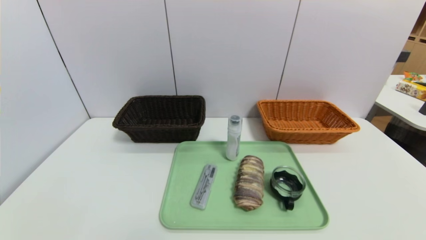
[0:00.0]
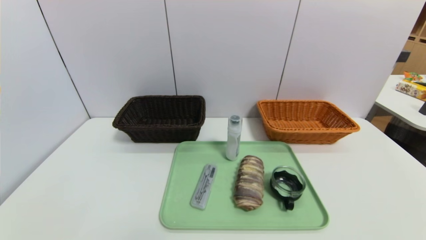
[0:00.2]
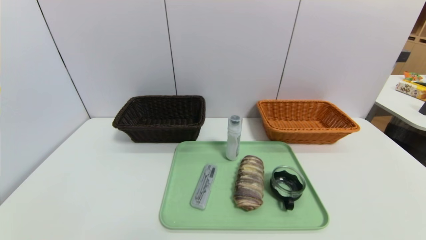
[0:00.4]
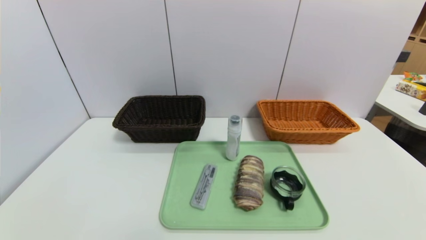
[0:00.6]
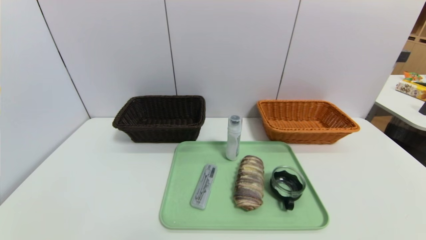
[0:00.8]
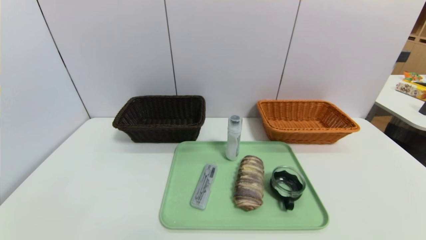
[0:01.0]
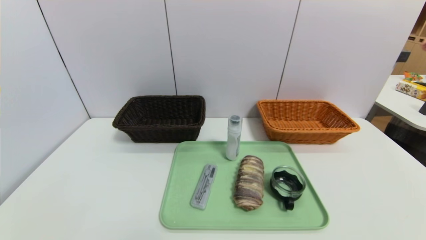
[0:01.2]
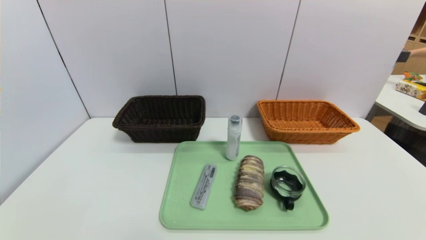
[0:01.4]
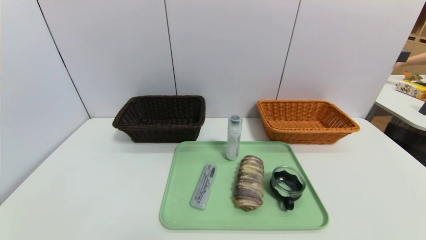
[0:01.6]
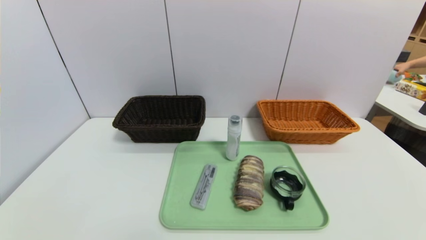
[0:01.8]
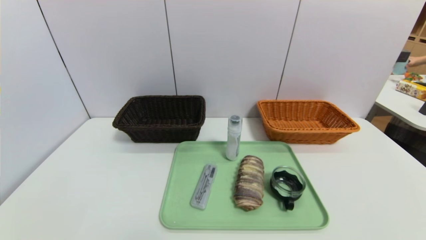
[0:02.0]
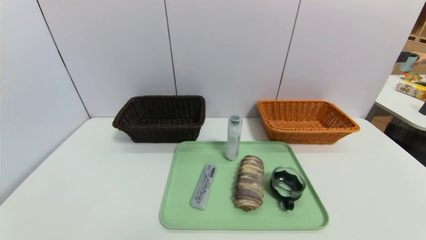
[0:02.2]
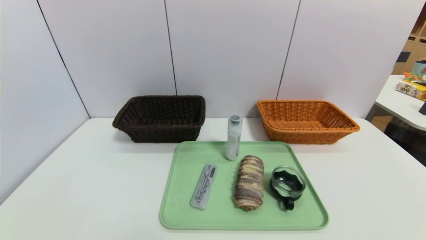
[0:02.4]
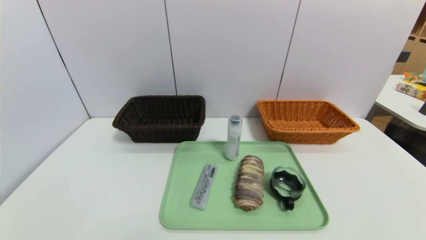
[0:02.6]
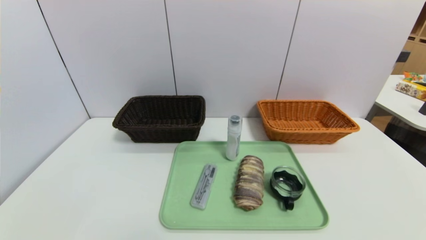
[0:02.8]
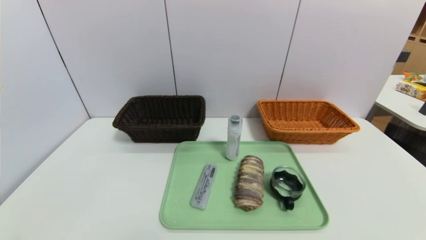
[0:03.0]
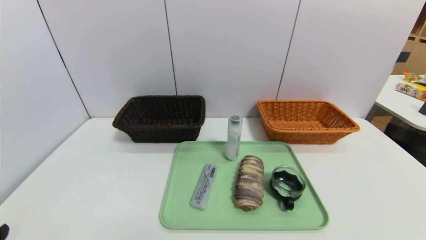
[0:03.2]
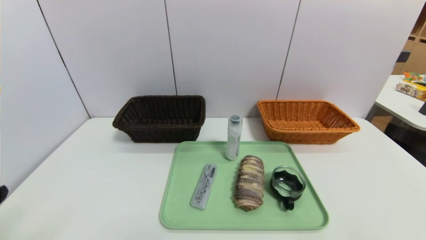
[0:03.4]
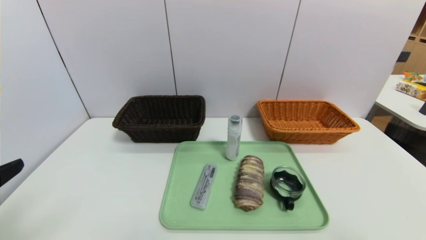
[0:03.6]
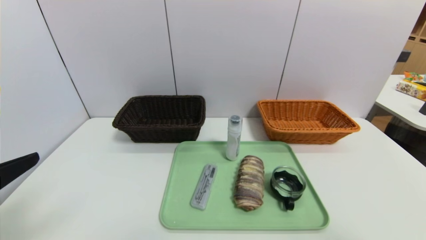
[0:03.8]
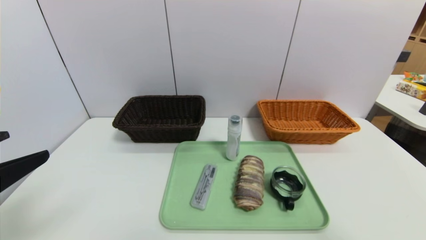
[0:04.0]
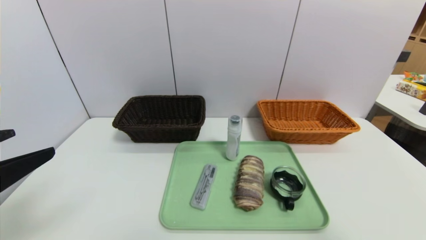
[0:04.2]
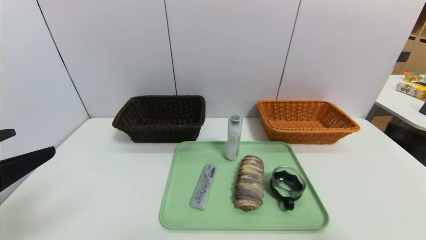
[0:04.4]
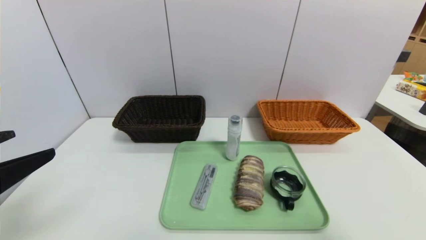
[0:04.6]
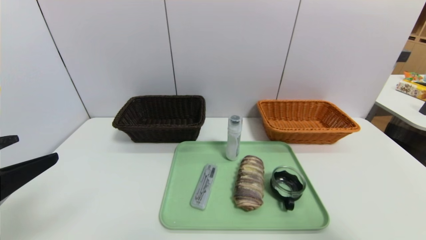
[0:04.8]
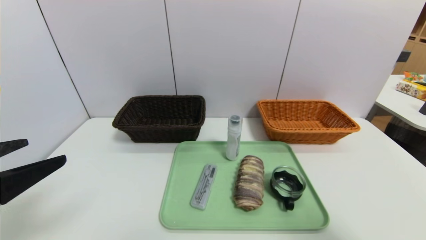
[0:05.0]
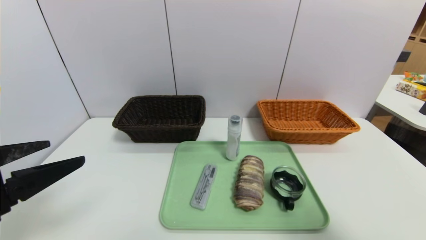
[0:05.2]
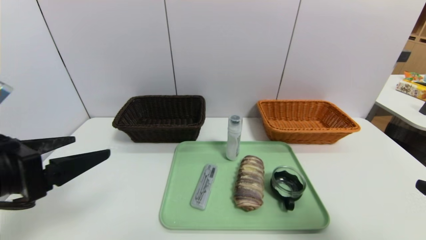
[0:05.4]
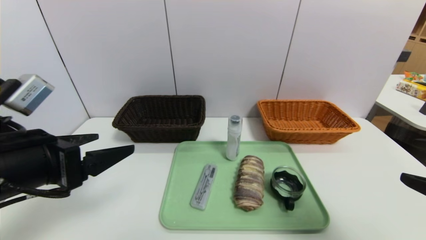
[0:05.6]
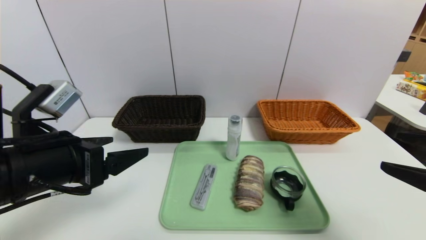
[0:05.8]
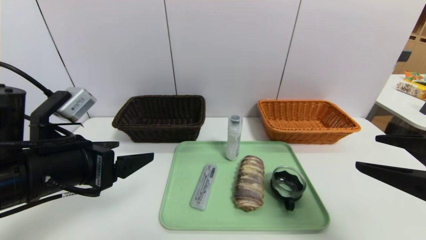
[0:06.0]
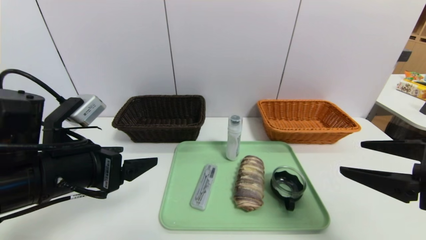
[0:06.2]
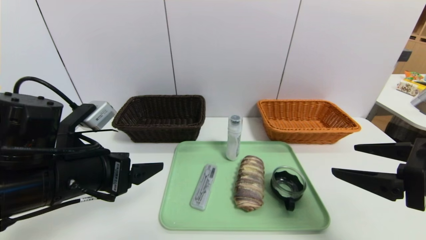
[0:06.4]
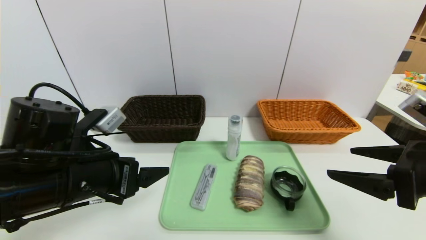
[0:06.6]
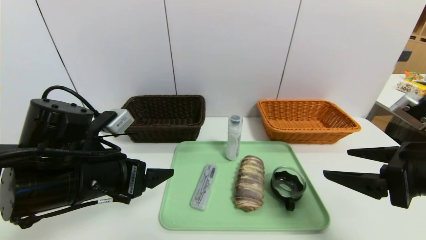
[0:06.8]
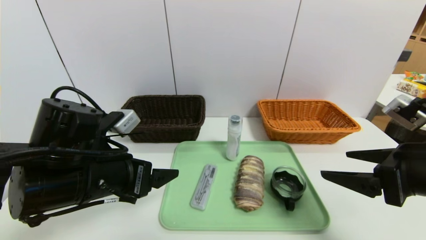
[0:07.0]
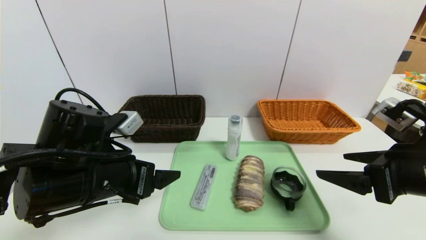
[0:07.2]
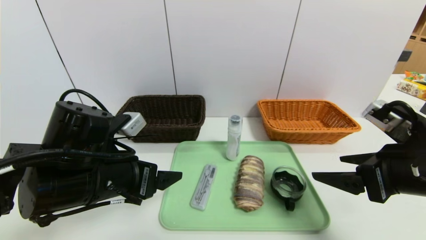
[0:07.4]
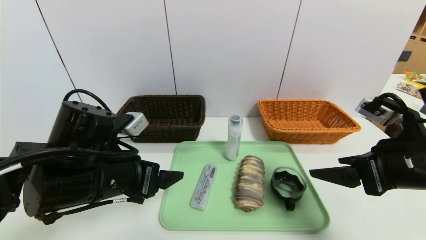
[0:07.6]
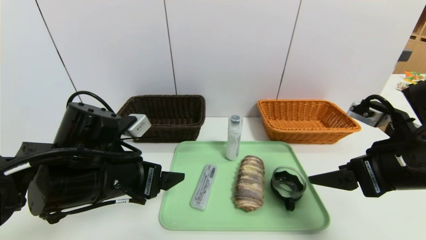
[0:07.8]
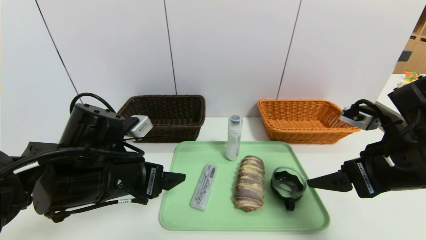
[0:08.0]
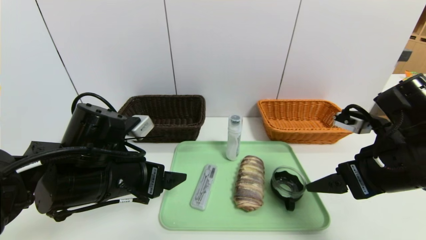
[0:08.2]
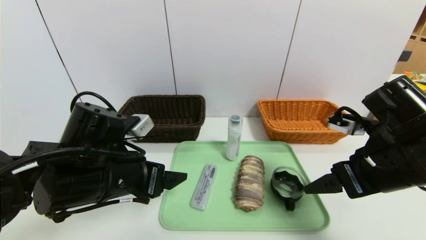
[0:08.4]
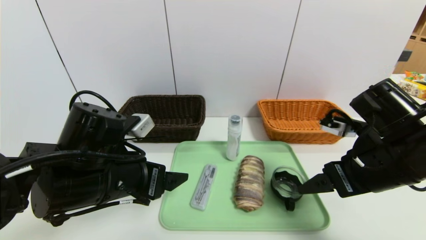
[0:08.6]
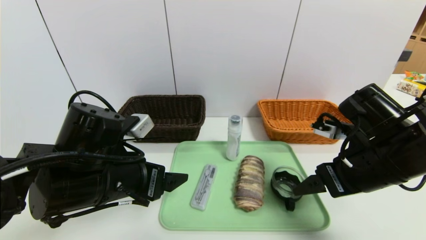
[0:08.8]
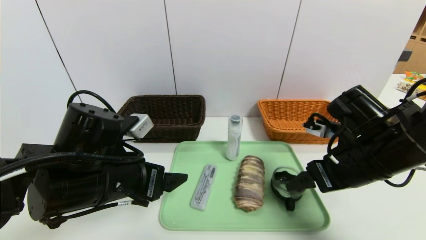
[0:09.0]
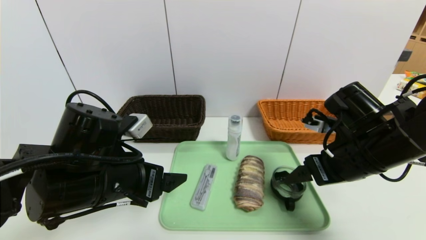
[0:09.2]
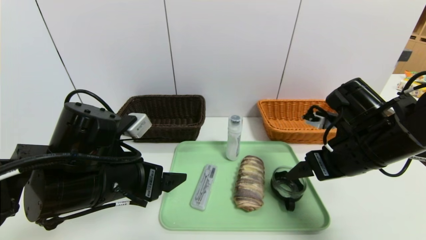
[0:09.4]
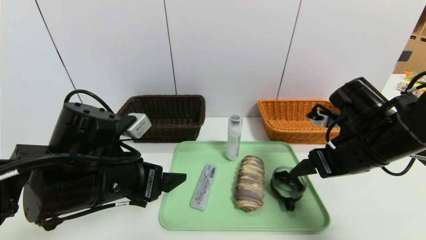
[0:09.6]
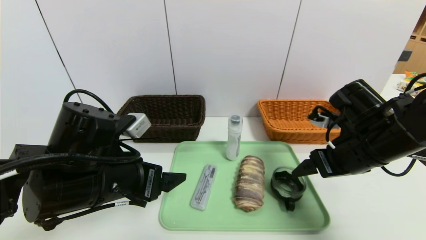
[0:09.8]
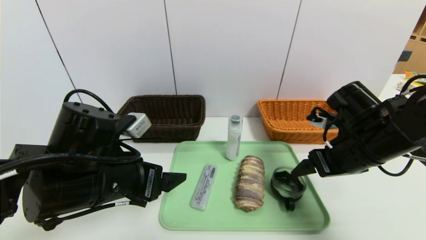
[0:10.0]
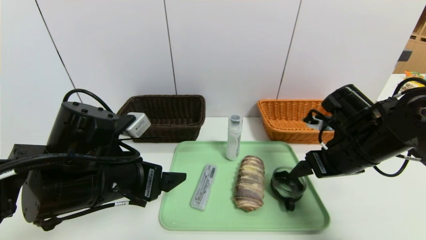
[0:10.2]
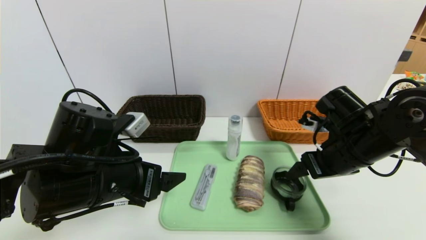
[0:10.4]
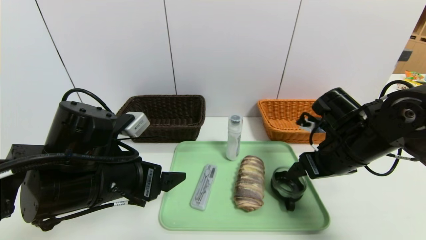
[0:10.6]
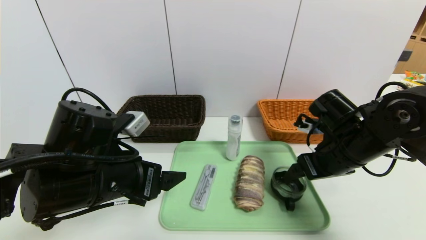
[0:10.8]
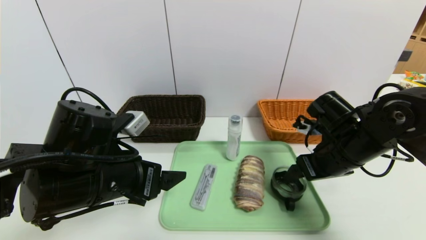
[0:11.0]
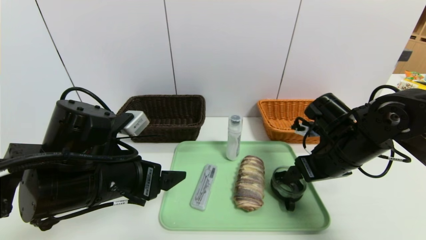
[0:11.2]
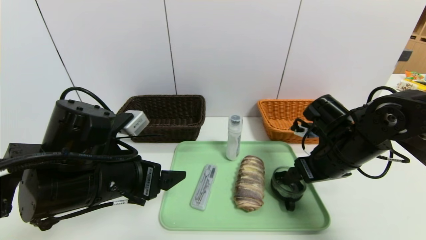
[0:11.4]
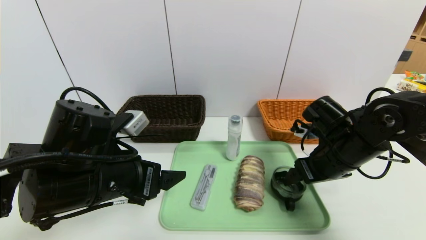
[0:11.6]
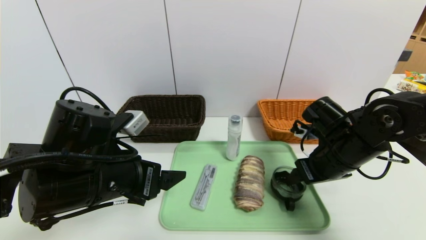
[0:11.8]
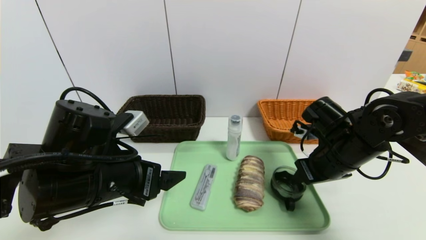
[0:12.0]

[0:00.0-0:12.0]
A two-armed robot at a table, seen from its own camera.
Task of the whole recording: place the food in the right basket with the right gripper, and place the non food items in the left basket with the left gripper.
0:00.0 to 0:01.6: Neither gripper changes place.
0:03.0 to 0:04.4: The left gripper heads upward and forward, covering approximately 15 cm.
0:04.4 to 0:06.0: The left gripper heads forward and to the right, covering approximately 10 cm; the right gripper moves forward, about 10 cm.
0:06.0 to 0:07.6: The left gripper moves approximately 5 cm; the right gripper travels forward by roughly 5 cm.
0:07.6 to 0:09.0: The right gripper is displaced forward by about 5 cm.
0:09.0 to 0:10.4: The grippers make only small movements.
0:10.4 to 0:12.0: The right gripper closes.

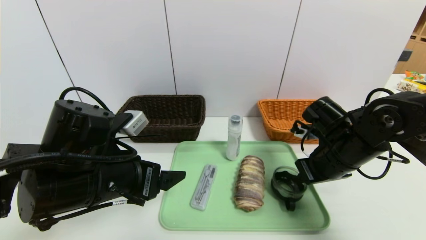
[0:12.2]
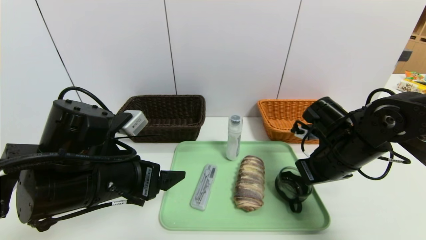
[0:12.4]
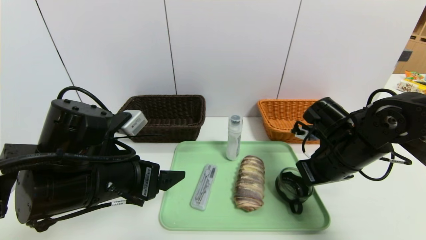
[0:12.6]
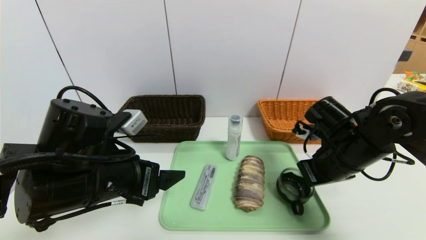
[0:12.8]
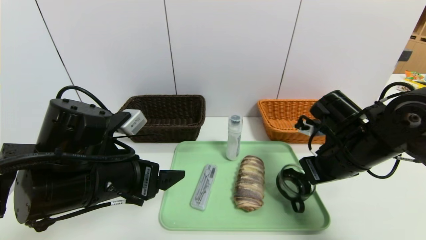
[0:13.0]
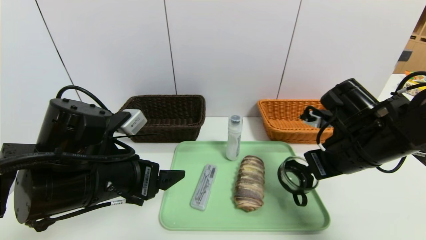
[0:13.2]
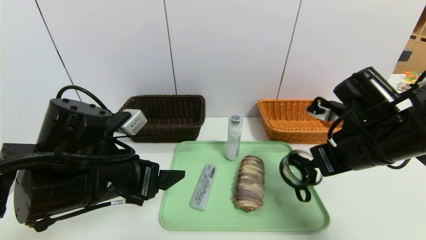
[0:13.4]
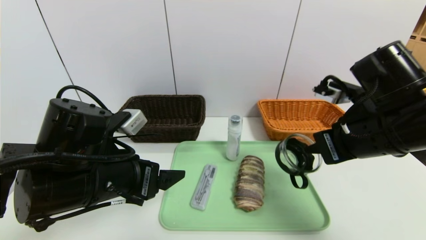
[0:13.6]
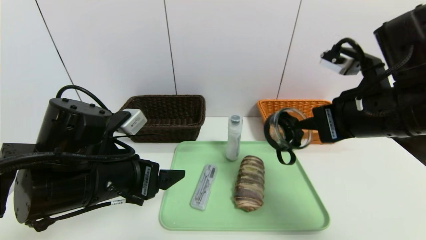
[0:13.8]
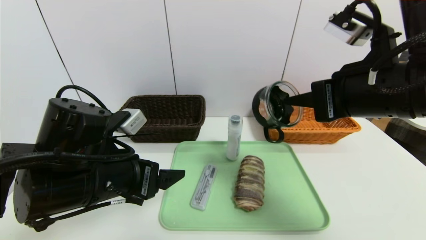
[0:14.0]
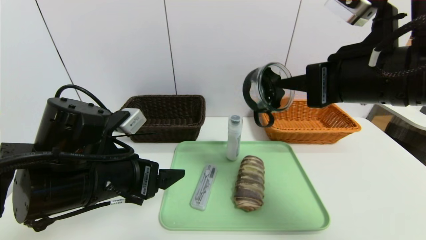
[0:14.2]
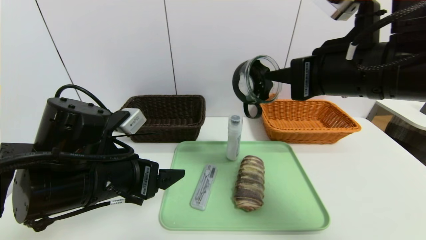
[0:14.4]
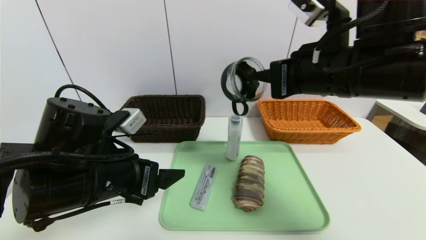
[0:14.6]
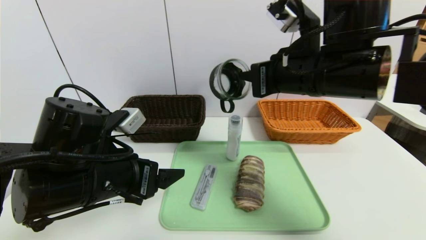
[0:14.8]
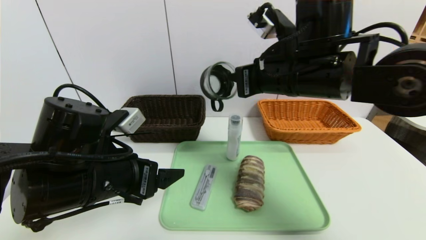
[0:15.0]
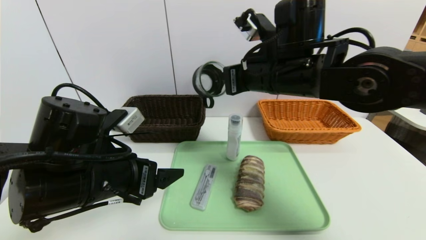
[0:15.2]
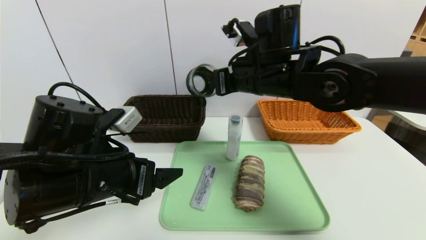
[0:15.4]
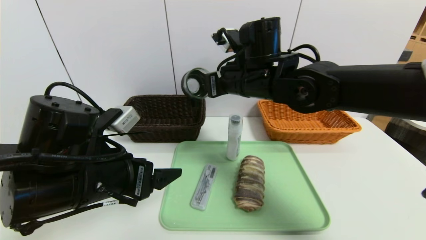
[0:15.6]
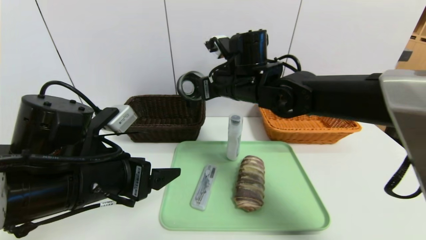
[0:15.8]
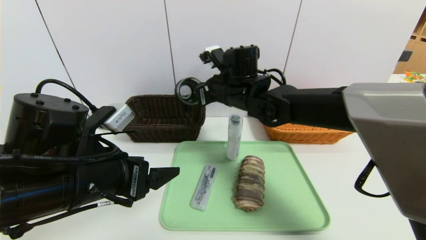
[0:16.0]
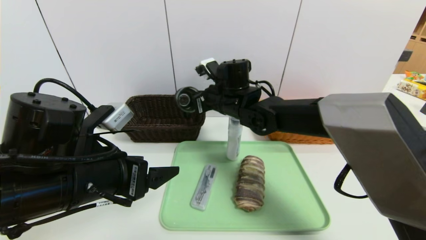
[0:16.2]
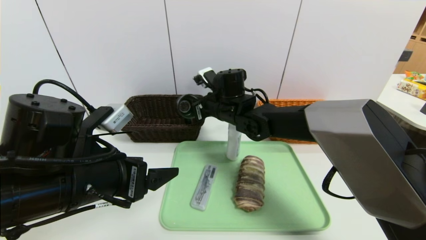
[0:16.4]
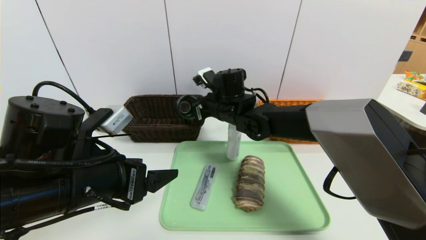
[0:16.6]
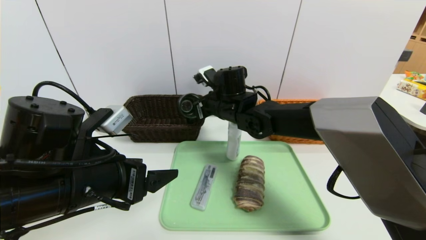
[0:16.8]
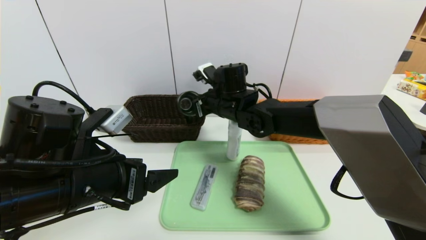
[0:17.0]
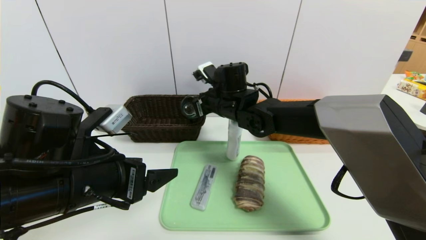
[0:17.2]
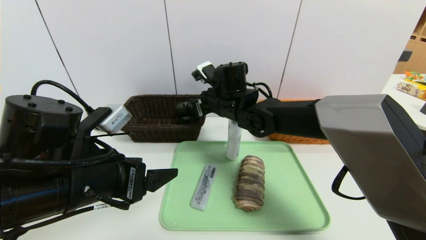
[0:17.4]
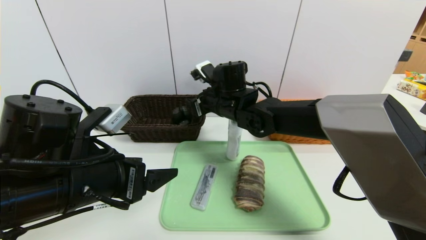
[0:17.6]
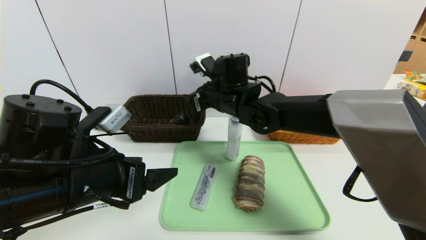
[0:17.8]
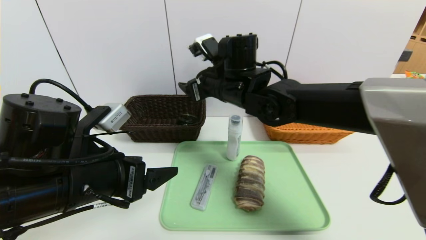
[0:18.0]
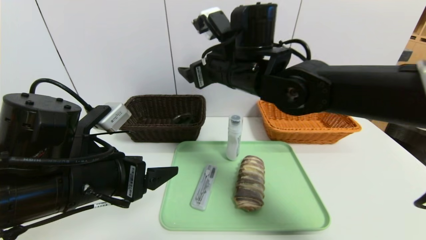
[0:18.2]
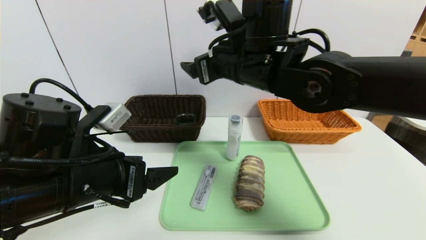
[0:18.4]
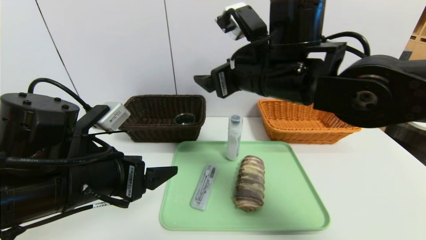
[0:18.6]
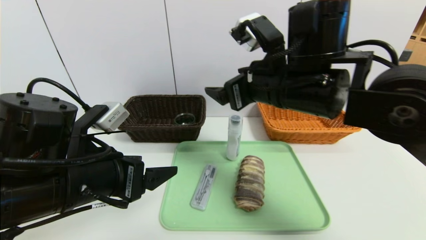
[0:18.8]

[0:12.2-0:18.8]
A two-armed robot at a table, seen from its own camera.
Task of the whole recording: place the food in the right basket with the right gripper, and place the non food items in the left basket with the left gripper.
0:12.2 to 0:13.8: The right gripper travels upward and backward by about 15 cm.
0:13.8 to 0:15.4: The right gripper goes roughly 15 cm to the left and forward.
0:15.4 to 0:17.2: The right gripper shifts approximately 15 cm downward, forward and to the left.
0:17.2 to 0:18.8: The right gripper shifts roughly 20 cm backward, upward and to the right, and opens its fingers.
